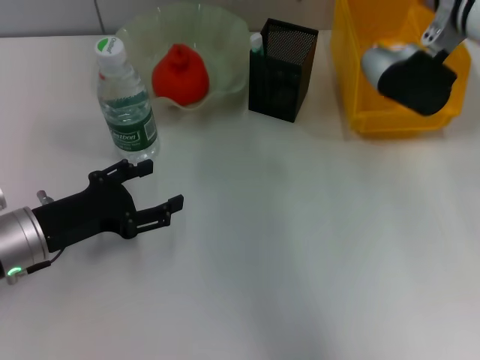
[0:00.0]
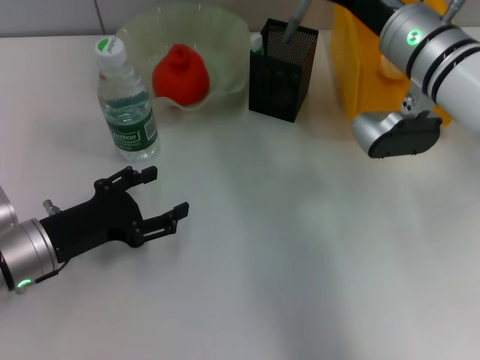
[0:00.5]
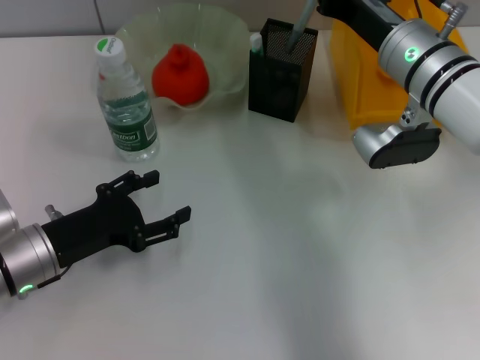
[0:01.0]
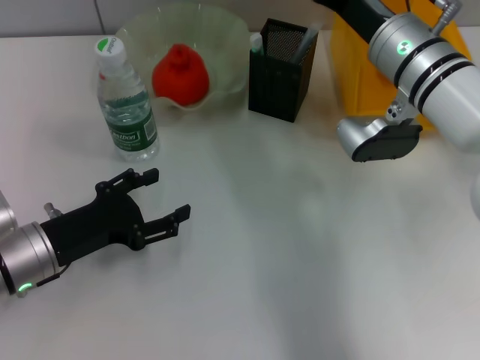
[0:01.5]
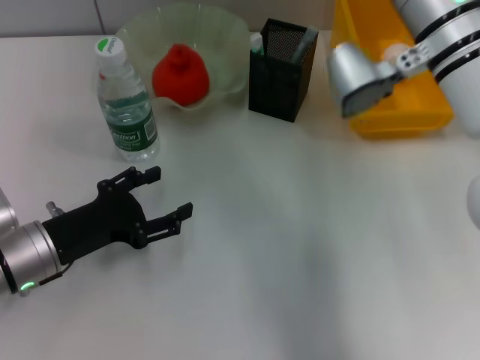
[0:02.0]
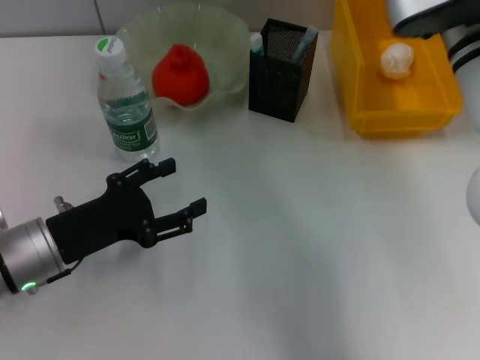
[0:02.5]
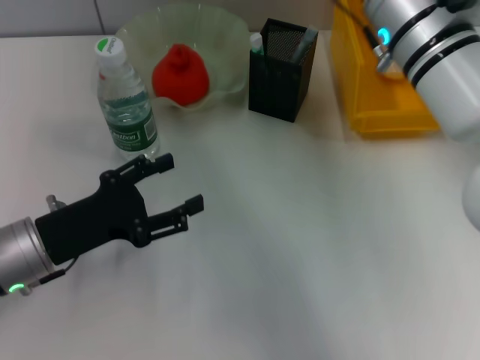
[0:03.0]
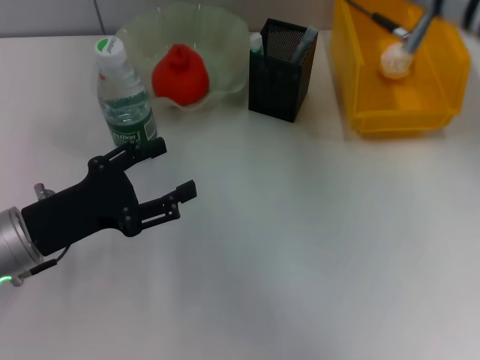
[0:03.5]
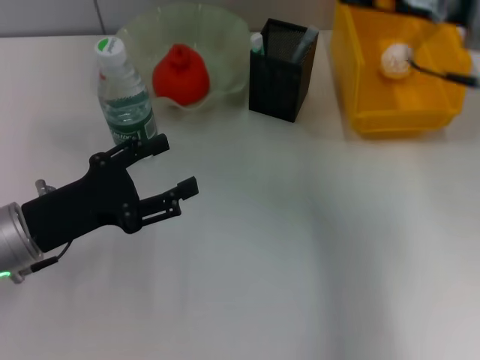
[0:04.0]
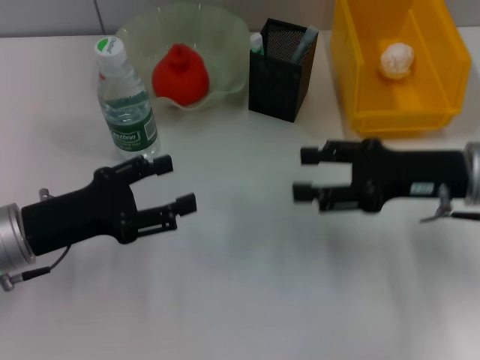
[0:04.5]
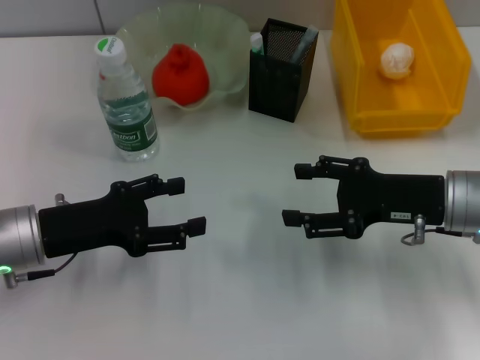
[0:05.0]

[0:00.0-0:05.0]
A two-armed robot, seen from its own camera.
0:00.0 to 0:02.5: The right gripper opens.
0:02.5 to 0:05.0: The right gripper moves downward, backward and to the right, some 15 cm.

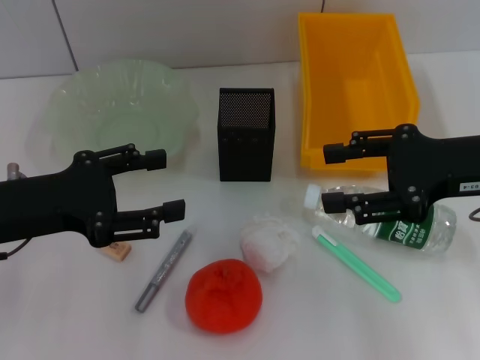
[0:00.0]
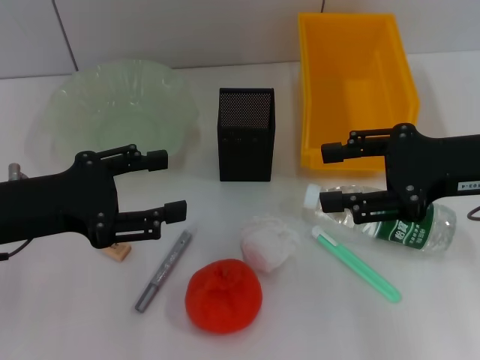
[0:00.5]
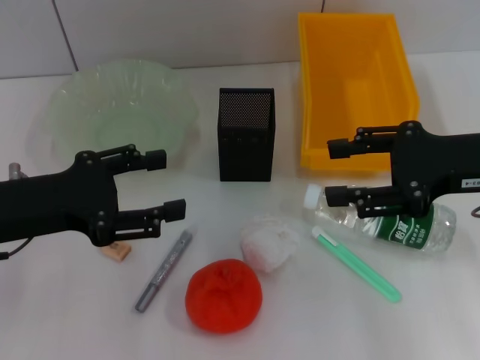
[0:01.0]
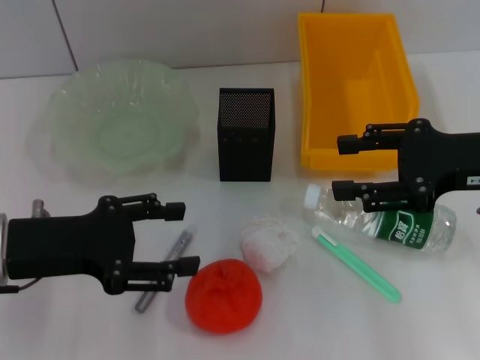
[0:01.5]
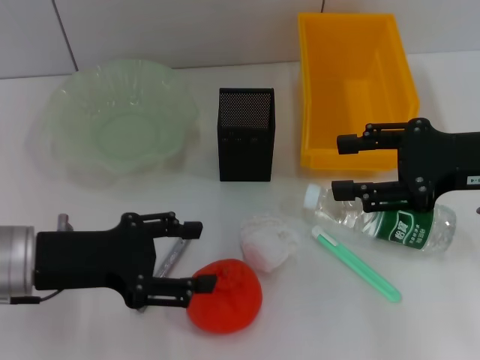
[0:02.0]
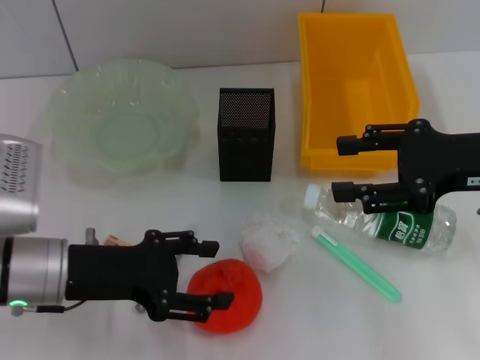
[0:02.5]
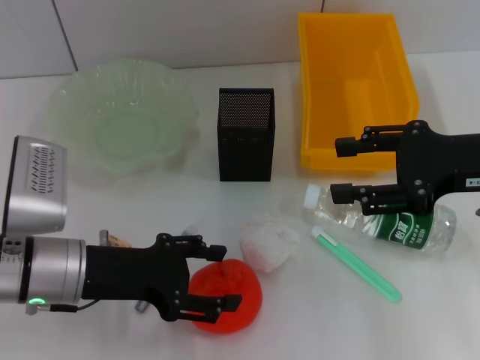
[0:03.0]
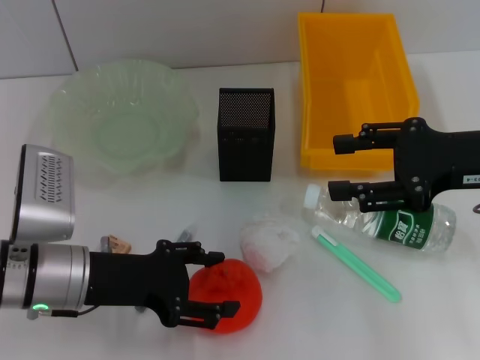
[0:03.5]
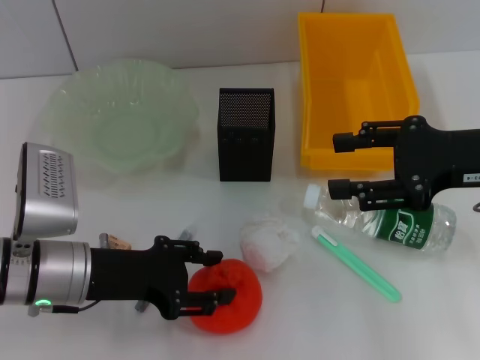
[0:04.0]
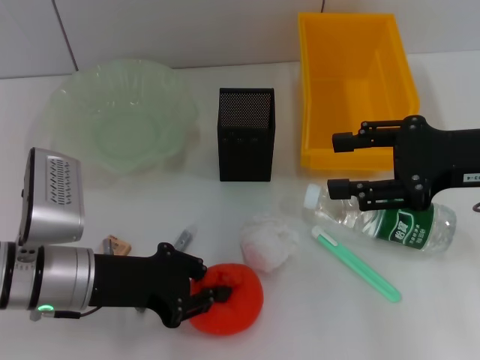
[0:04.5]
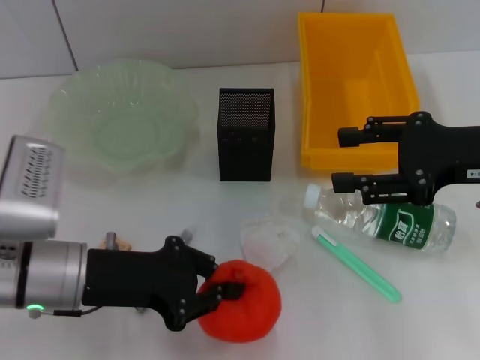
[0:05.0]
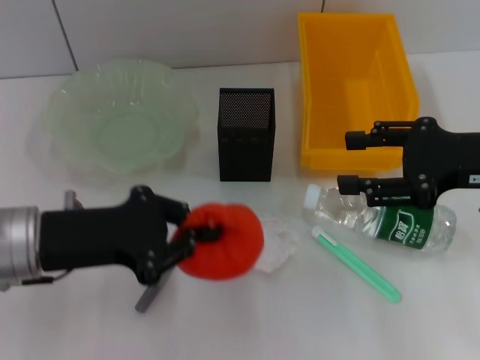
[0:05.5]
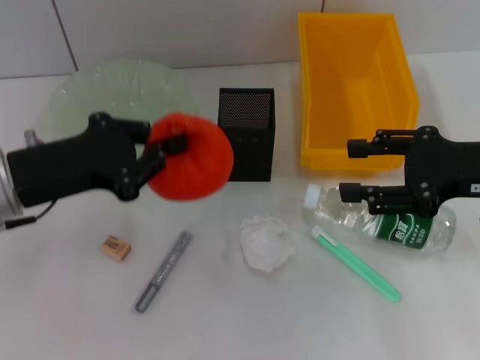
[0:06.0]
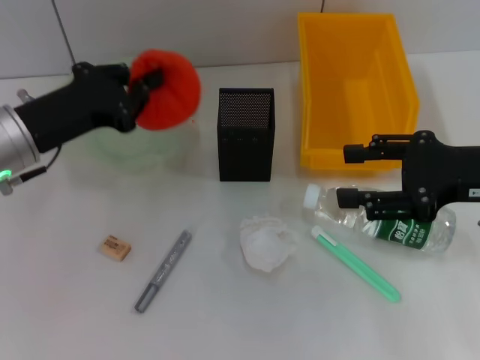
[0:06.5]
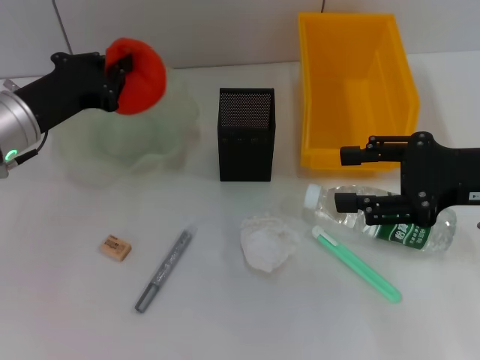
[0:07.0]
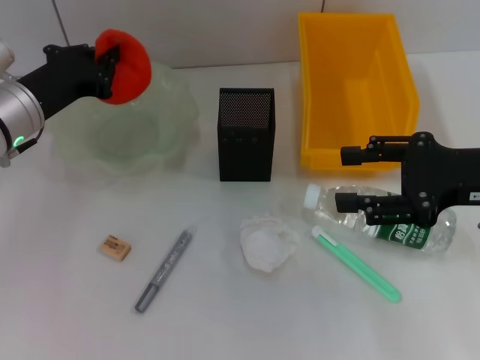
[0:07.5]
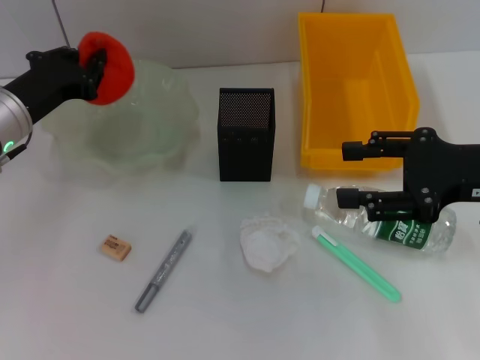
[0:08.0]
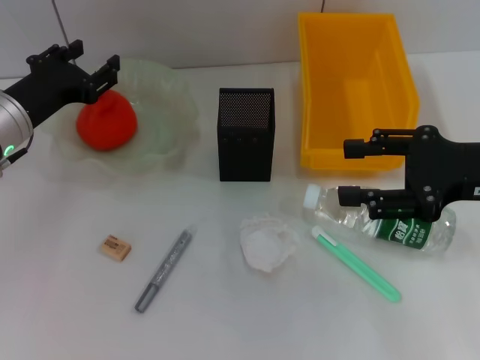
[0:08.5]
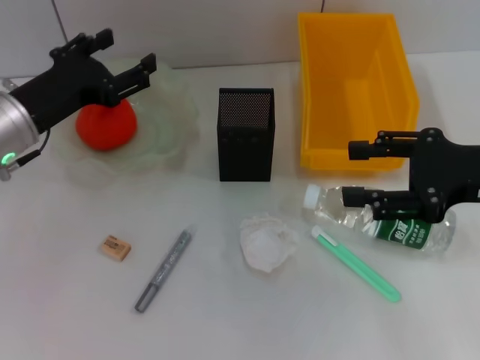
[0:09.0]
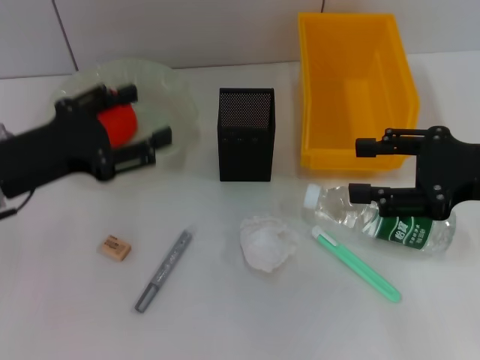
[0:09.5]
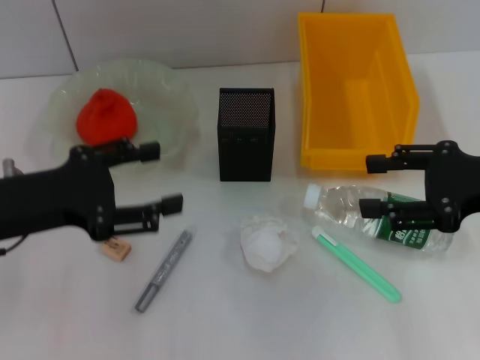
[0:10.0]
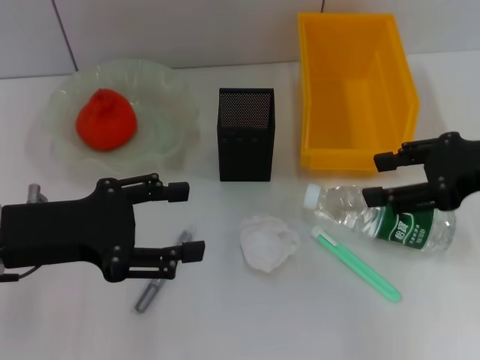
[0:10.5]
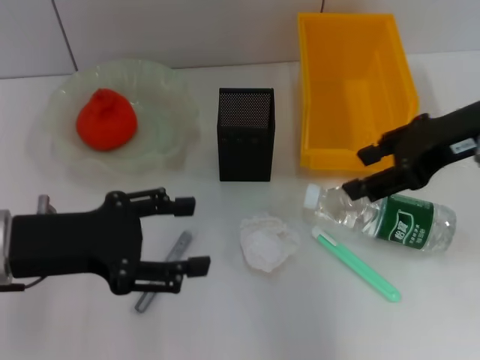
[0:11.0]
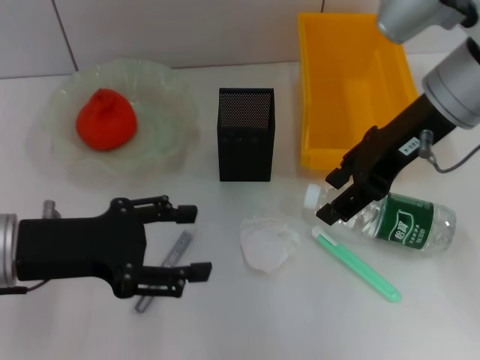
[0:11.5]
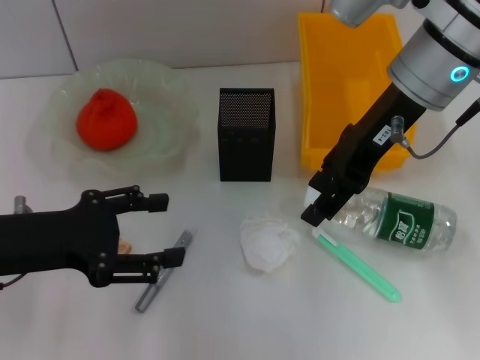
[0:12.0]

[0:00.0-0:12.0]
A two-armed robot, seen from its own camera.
Step, 0:00.0 to 0:04.0: Grab the orange with the left hand.
Step, 0:04.5 to 0:08.0: Place the orange into the fruit bowl with the left hand.
0:00.0 to 0:02.0: The grippers stay close to where they were, moving slightly.
0:02.0 to 0:04.0: The left gripper shifts by some 5 cm.
0:04.0 to 0:06.0: The left gripper heads upward, covering approximately 5 cm, and closes up.
0:06.0 to 0:08.0: The left gripper shifts about 10 cm forward.
0:08.0 to 0:10.0: The left gripper shifts roughly 10 cm backward, and opens its fingers.
0:10.0 to 0:12.0: The right gripper travels to the left, forward and upward by roughly 20 cm.

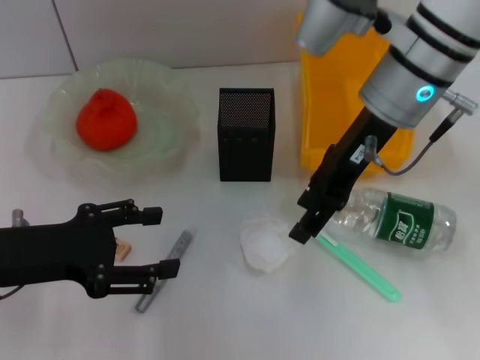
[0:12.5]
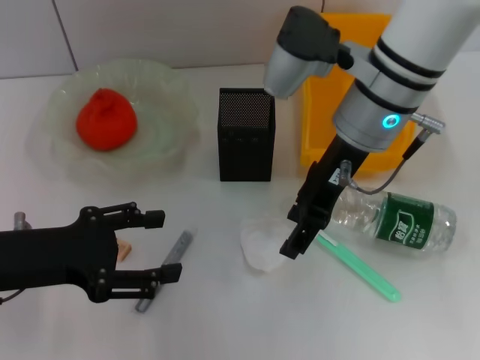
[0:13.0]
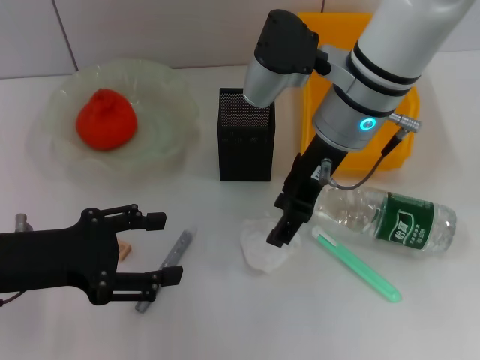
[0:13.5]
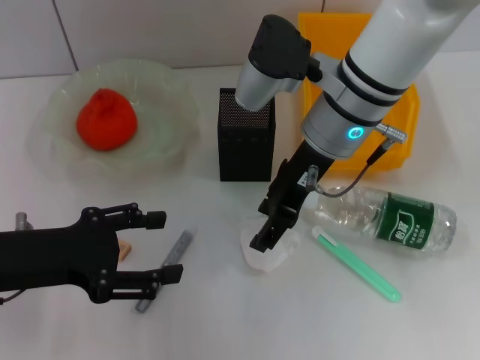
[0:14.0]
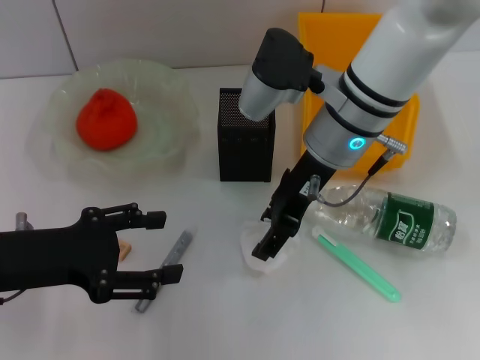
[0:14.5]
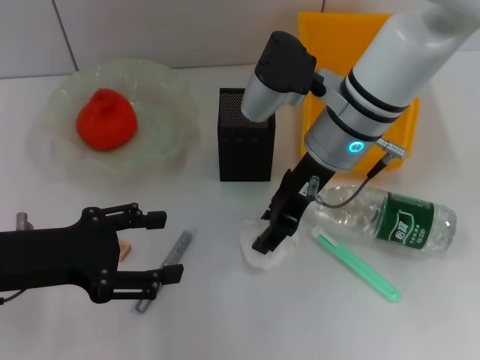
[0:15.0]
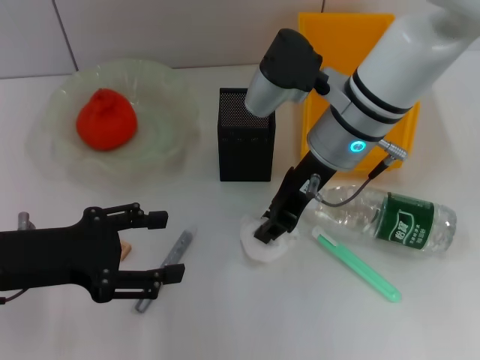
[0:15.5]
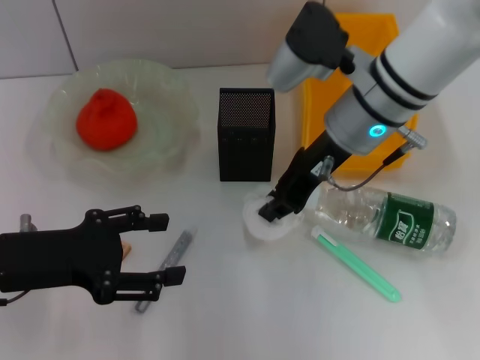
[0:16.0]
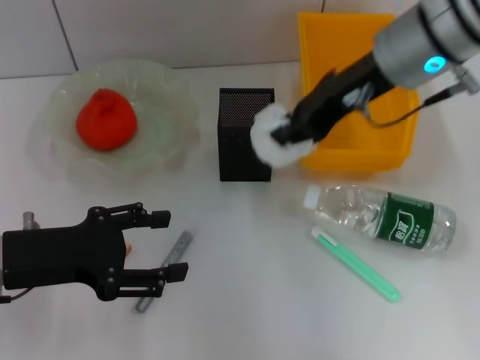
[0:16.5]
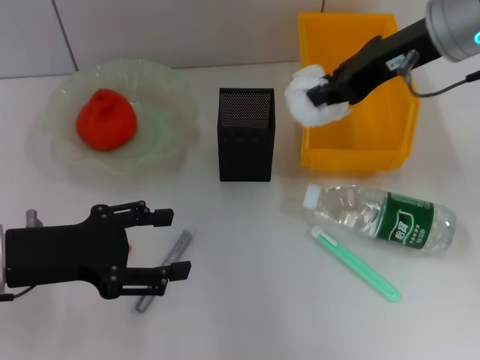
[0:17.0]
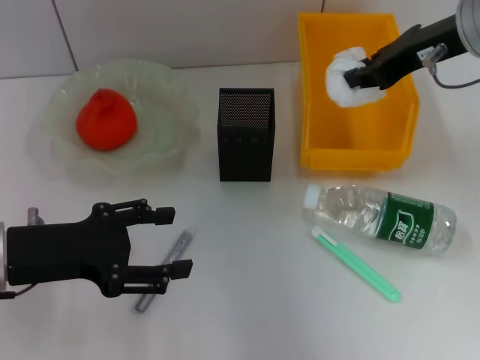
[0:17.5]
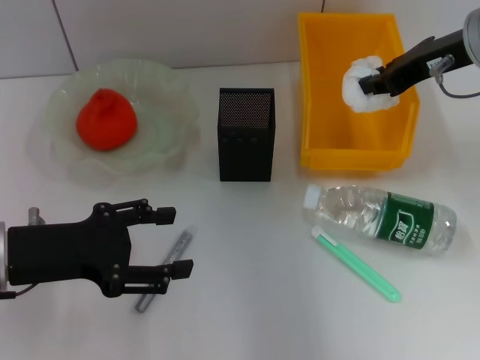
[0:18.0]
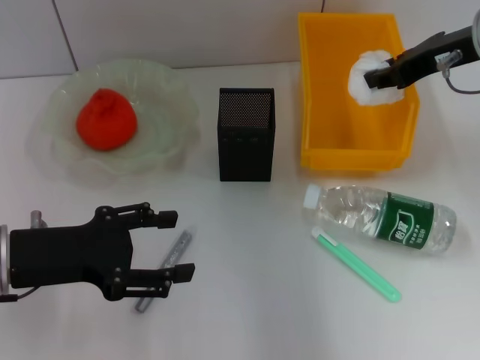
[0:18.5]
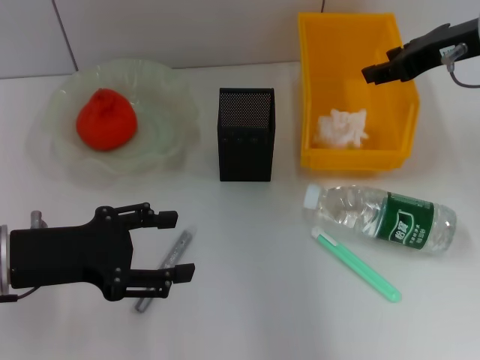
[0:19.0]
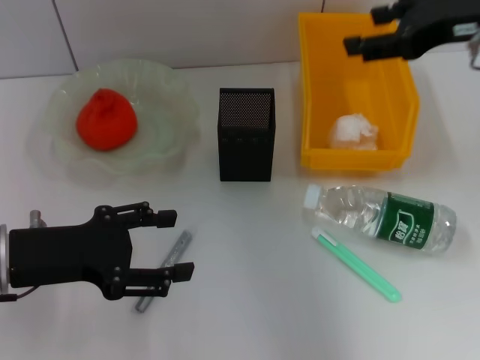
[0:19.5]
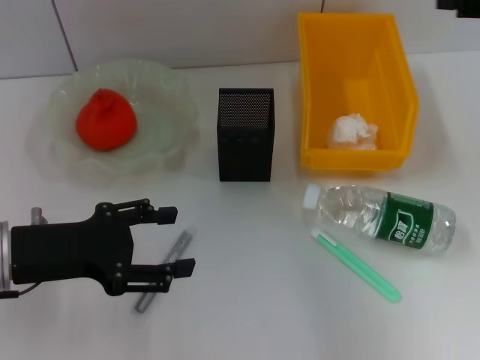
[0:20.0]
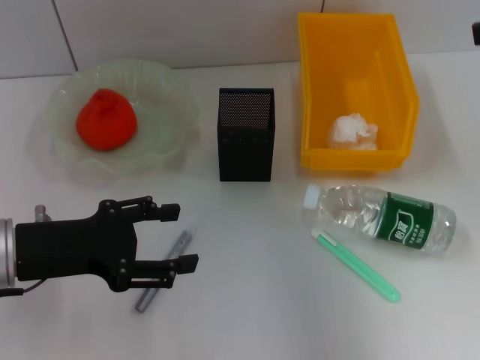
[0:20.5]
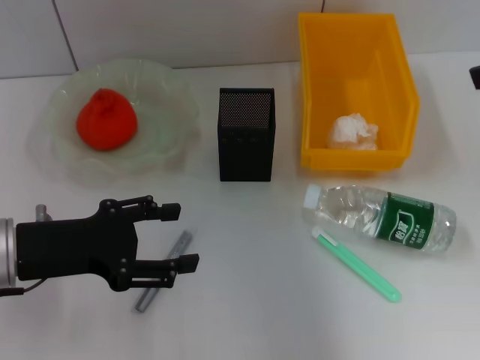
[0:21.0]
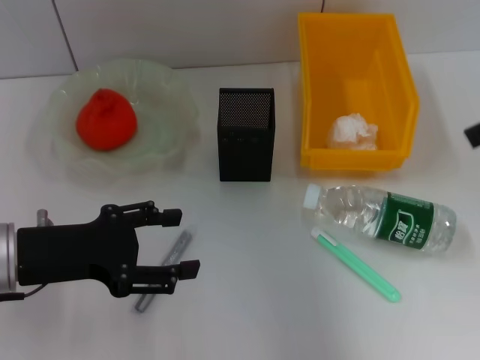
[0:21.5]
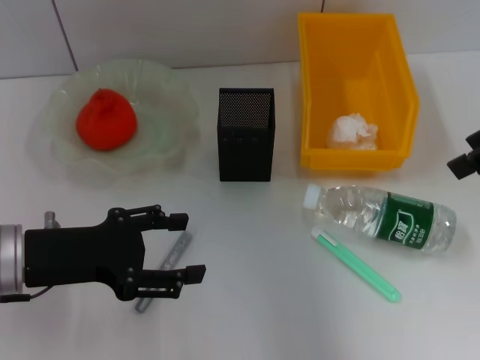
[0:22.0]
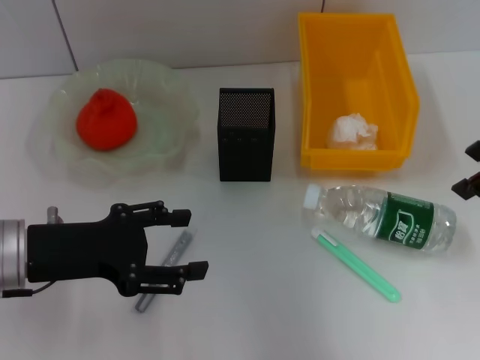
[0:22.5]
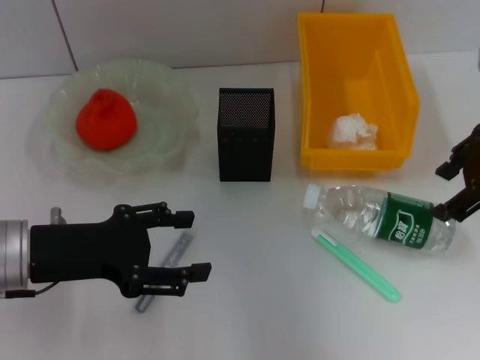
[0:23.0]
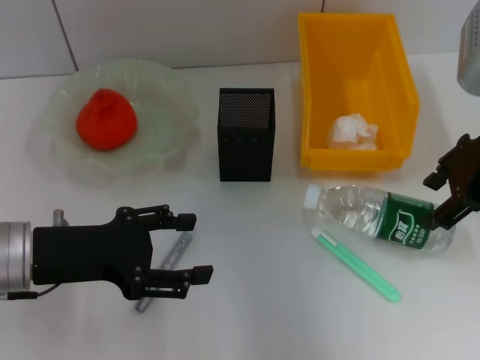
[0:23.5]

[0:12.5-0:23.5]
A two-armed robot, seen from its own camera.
Step, 0:12.5 to 0:15.0: Grab the paper ball with the right hand.
Step, 0:15.5 to 0:18.5: Place the paper ball into the trash can with the right hand.
0:12.5 to 0:14.5: The right gripper heads downward, covering approximately 5 cm.
0:14.5 to 0:16.0: The right gripper closes its fingers.
0:16.0 to 0:18.0: The right gripper heads to the right, covering approximately 10 cm.
0:18.0 to 0:20.0: The right gripper travels backward, to the right and upward by roughly 15 cm, and opens up.
0:21.5 to 0:23.5: The right gripper travels downward and to the left by some 10 cm.
